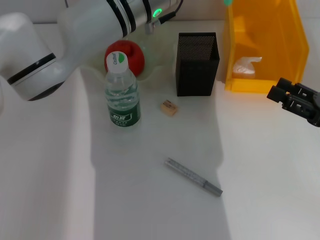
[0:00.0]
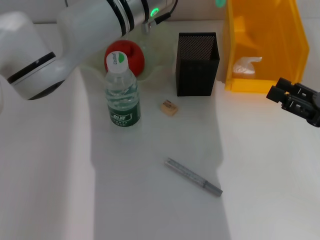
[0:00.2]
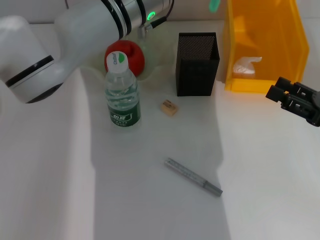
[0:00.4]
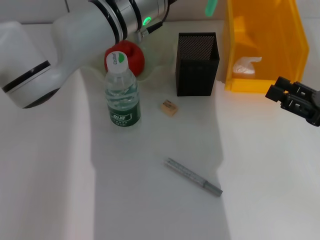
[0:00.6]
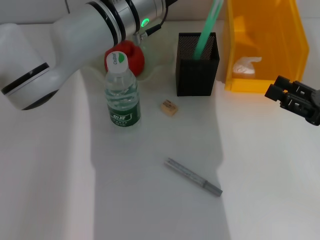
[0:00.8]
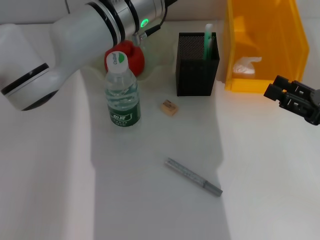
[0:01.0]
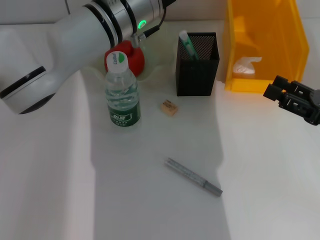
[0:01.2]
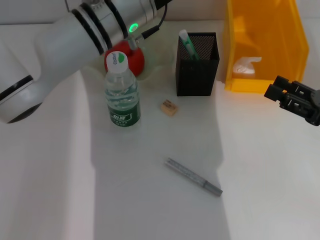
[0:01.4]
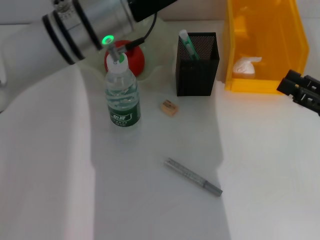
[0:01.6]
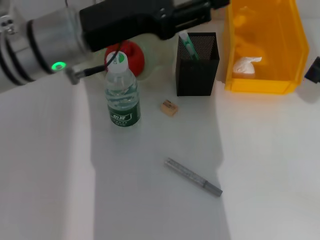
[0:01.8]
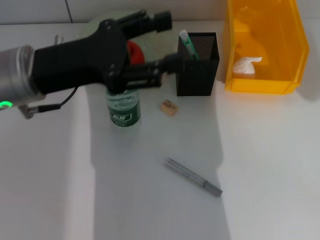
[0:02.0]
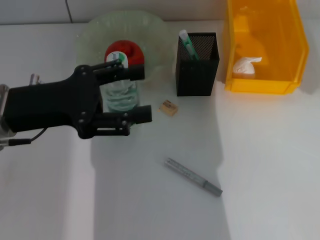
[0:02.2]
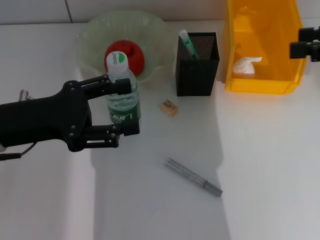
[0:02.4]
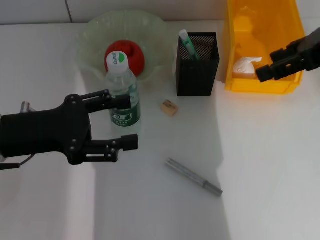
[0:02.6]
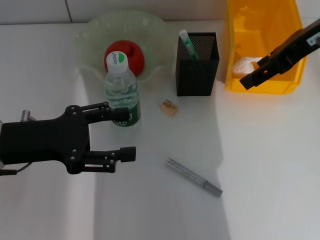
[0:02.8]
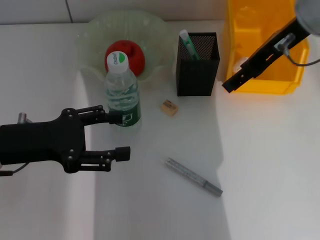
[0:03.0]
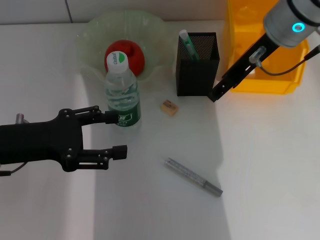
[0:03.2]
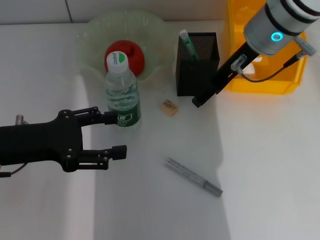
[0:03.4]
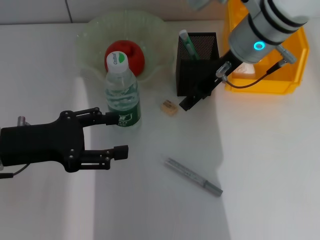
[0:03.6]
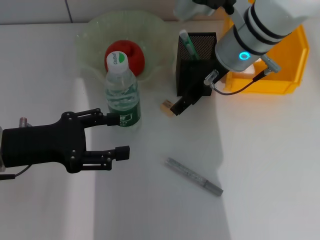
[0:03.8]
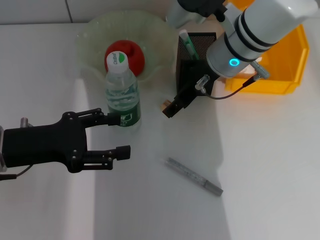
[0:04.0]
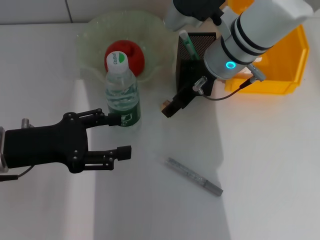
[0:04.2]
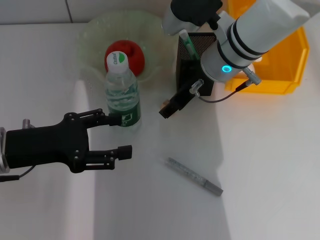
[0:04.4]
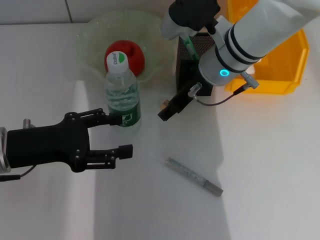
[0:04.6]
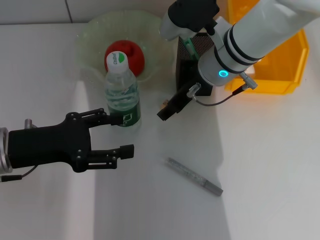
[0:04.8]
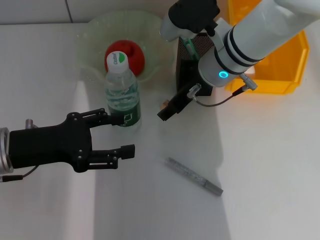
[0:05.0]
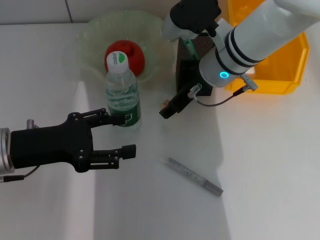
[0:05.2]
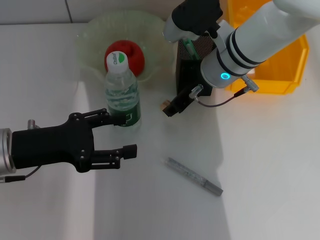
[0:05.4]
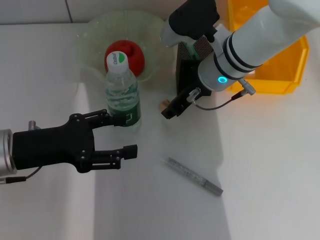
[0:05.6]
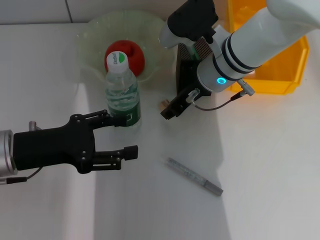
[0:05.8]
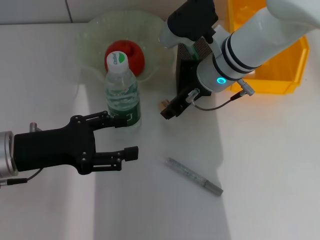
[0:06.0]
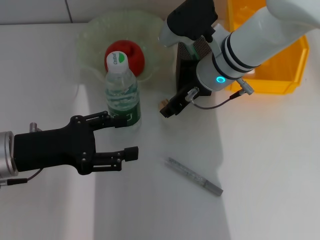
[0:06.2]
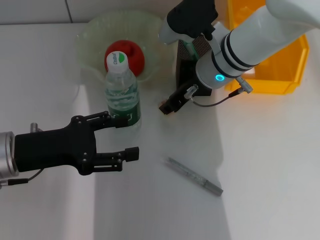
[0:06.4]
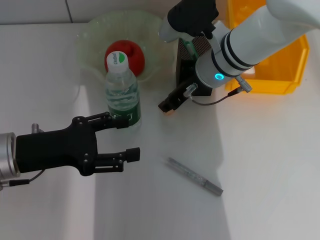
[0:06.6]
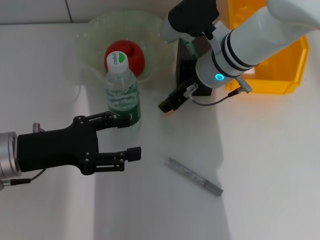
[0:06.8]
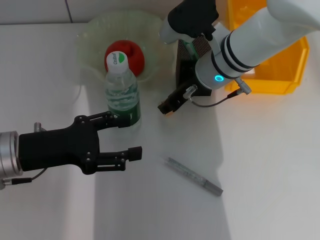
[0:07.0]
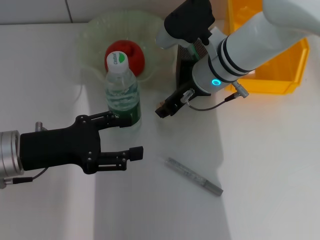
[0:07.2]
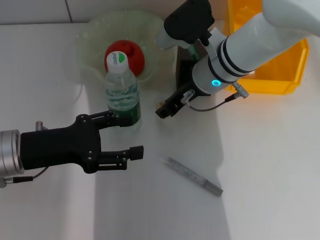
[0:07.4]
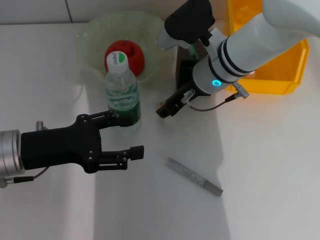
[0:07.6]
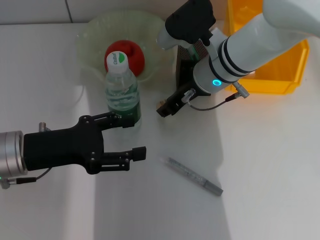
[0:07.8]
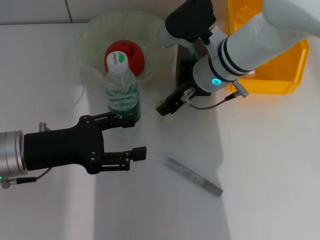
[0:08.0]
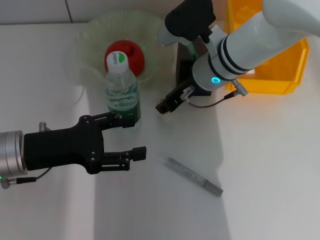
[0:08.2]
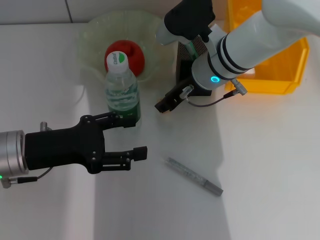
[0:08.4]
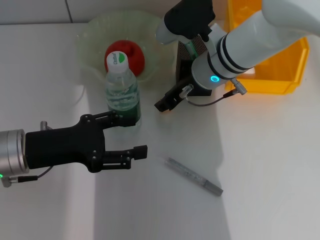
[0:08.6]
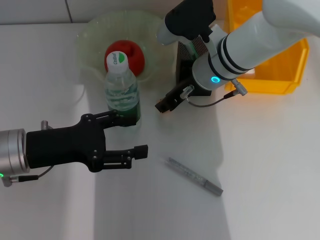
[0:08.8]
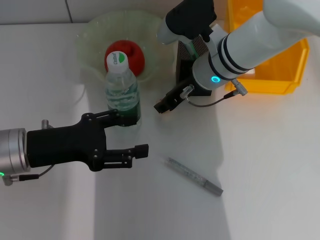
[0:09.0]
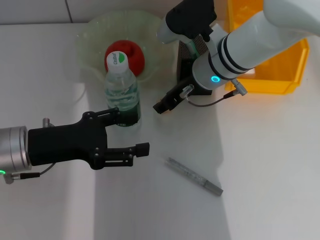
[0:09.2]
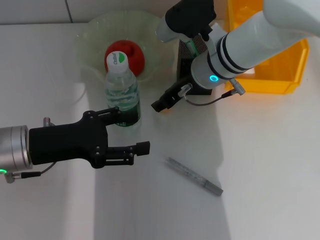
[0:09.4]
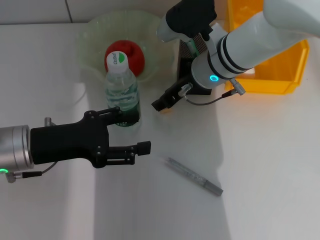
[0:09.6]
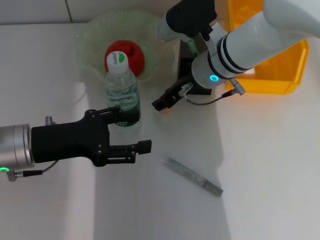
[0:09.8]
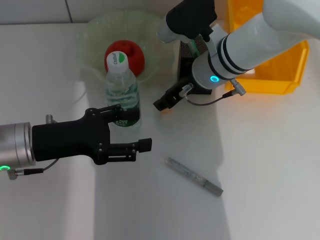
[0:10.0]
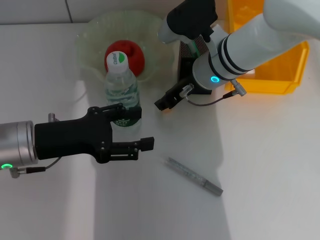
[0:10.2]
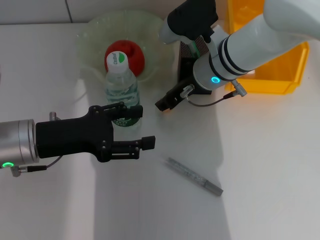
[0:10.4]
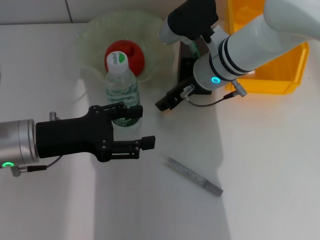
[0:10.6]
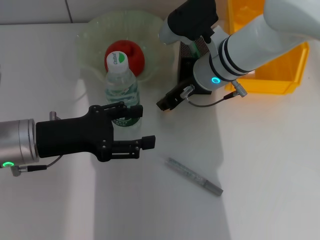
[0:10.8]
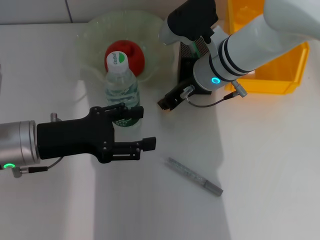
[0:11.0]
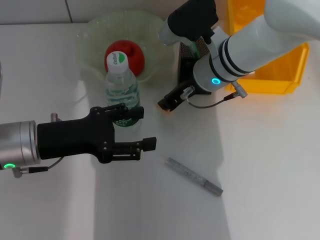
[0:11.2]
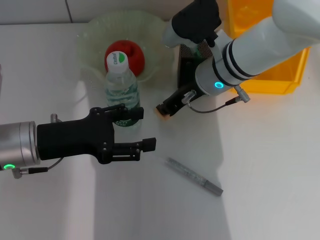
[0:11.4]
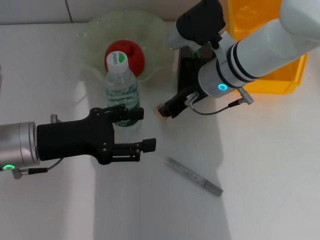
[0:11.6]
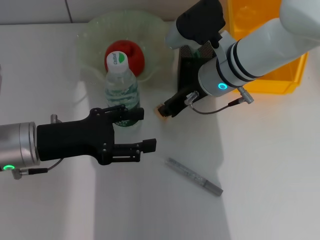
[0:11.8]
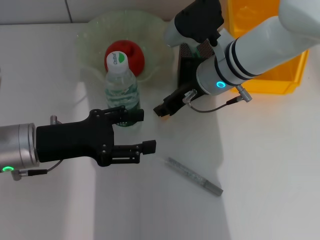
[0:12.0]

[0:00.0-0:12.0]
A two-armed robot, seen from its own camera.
0:00.0 to 0:01.6: The left gripper moves to the left, some 5 cm, and opens up.
0:01.6 to 0:03.0: The left gripper travels to the left, backward and downward by approximately 20 cm, and opens up. The right gripper goes about 25 cm to the left, upward and forward.
0:03.0 to 0:04.4: The right gripper shifts about 15 cm downward and to the left.
0:04.4 to 0:06.0: The right gripper closes its fingers.
0:06.0 to 0:07.6: The two grippers keep their place.
0:07.6 to 0:09.0: Neither gripper changes place.
0:09.0 to 0:12.0: The grippers make only small movements.

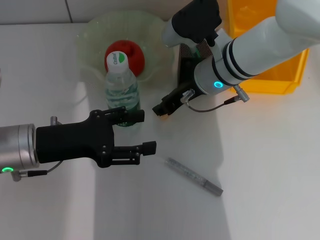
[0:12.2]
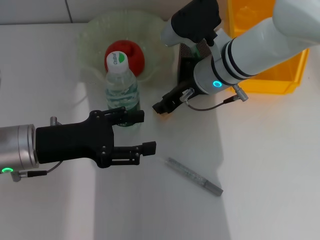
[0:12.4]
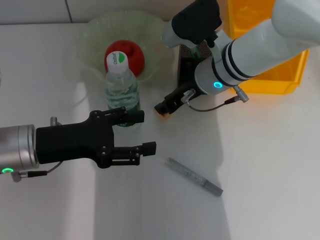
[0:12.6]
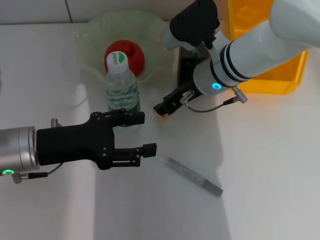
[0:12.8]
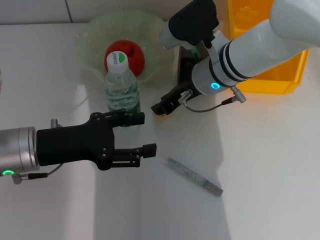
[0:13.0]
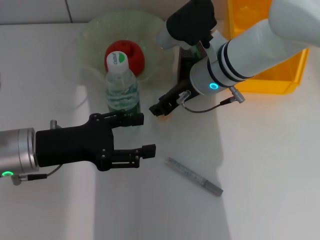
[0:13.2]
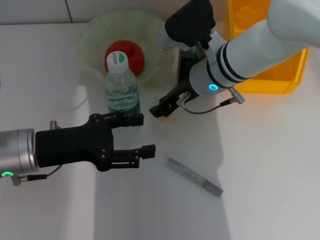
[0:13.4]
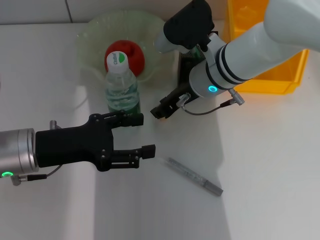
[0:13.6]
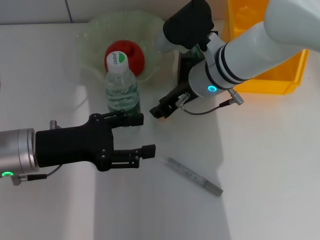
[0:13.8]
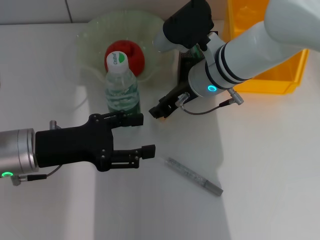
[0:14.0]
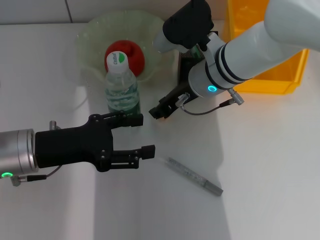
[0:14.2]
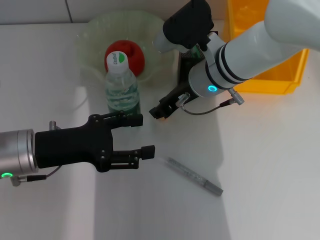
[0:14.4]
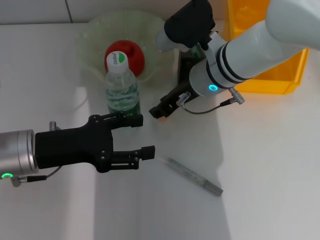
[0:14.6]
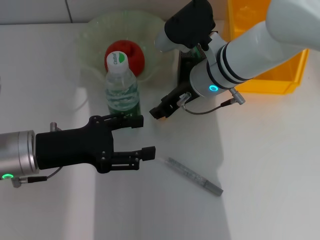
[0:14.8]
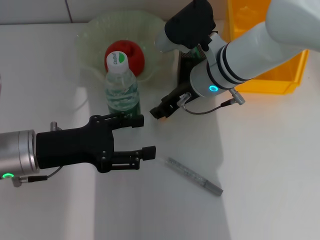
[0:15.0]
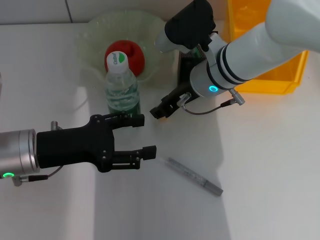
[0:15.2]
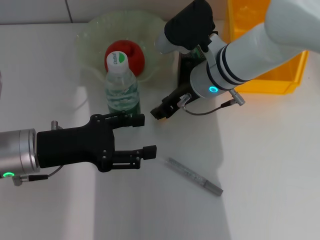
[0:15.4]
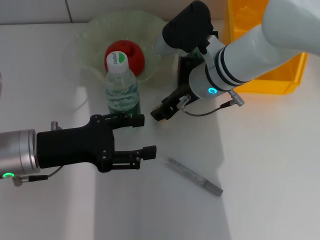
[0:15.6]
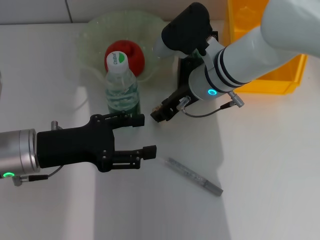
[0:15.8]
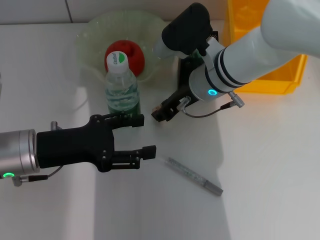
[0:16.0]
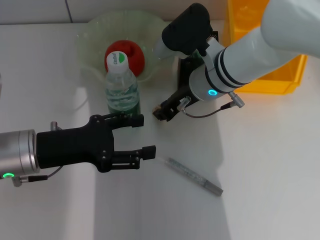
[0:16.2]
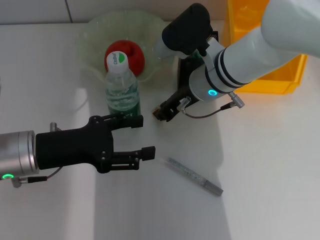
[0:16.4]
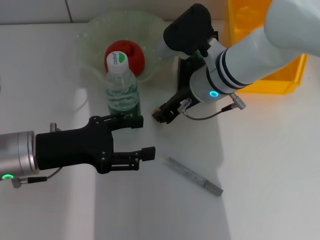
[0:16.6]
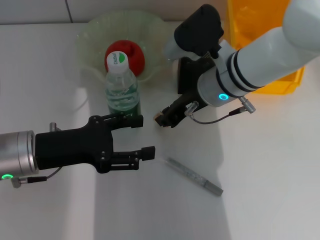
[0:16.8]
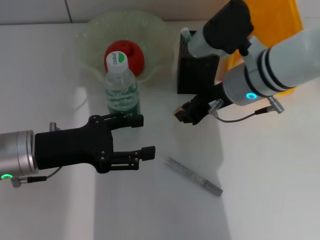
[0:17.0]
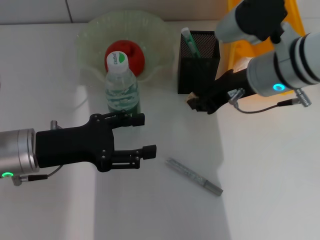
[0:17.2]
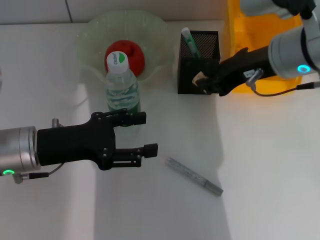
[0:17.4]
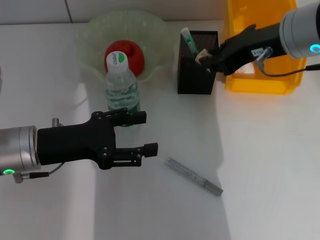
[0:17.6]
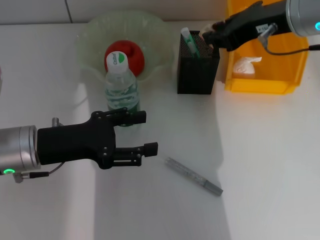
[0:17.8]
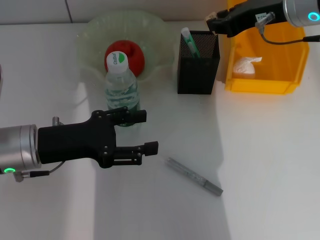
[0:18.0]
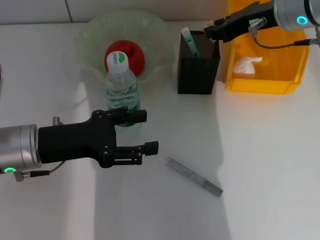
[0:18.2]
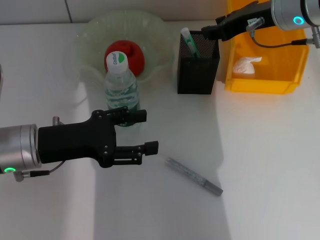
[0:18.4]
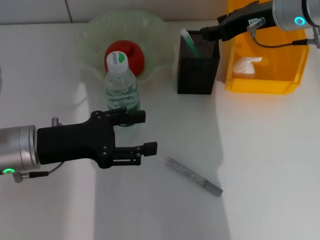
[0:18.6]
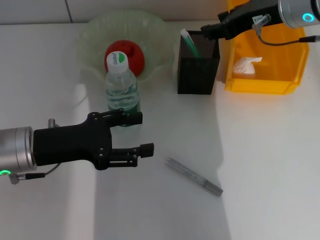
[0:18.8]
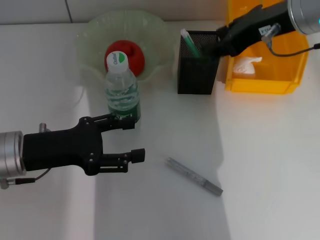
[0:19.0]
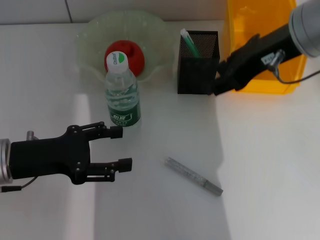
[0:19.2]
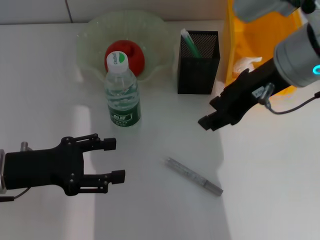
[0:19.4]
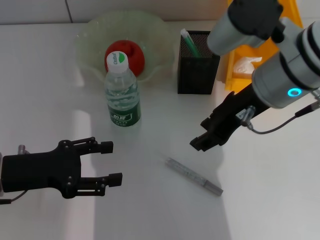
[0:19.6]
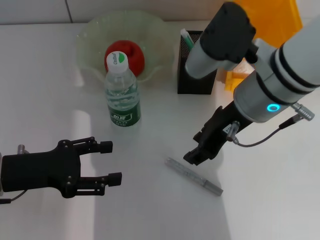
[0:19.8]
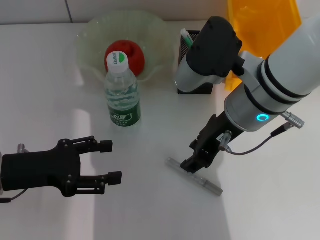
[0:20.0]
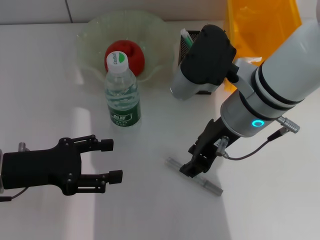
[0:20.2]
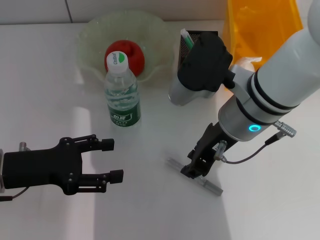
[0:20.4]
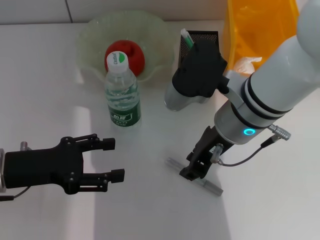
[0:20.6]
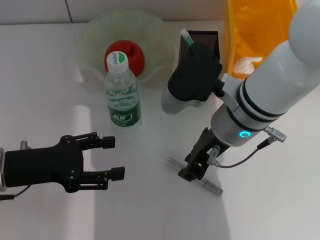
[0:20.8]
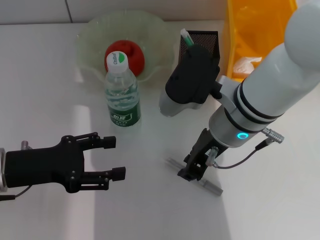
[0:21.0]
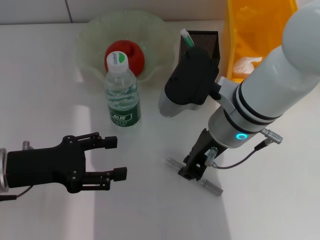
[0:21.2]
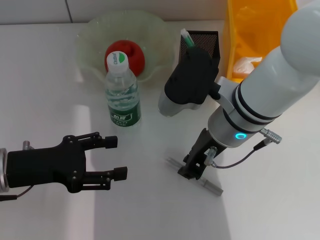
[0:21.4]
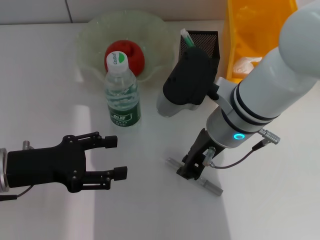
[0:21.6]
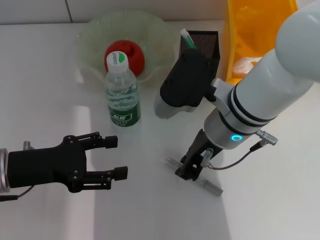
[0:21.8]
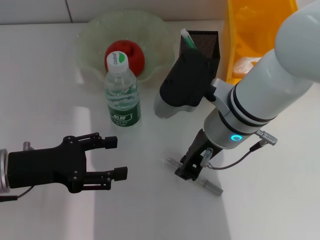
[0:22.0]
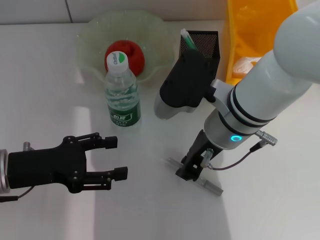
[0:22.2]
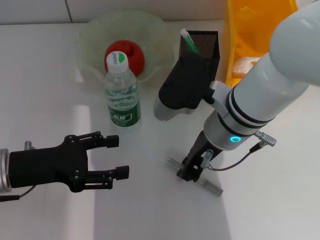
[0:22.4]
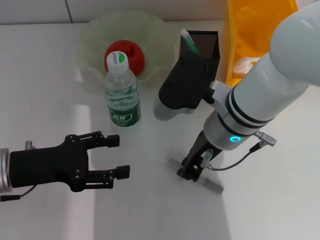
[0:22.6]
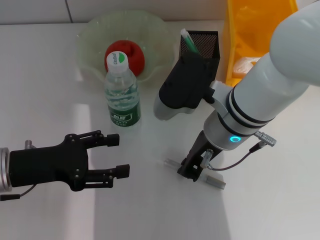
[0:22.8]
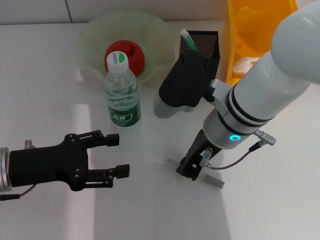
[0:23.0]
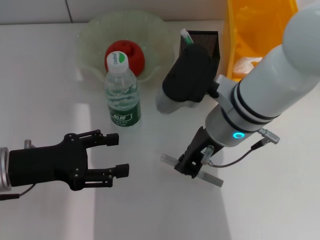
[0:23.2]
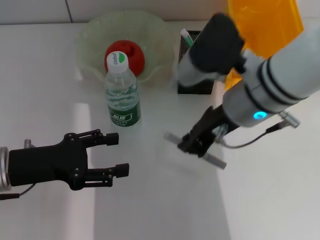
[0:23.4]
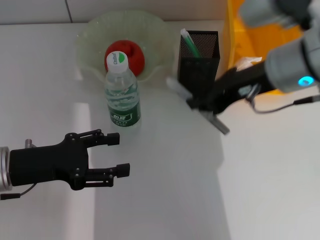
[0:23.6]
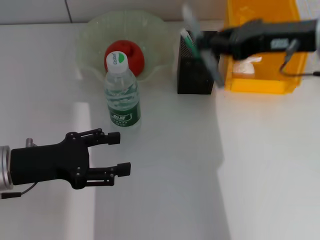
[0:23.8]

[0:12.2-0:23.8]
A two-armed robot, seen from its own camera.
Step, 0:12.2 to 0:16.2: Grab the eraser with the right hand.
Step, 0:16.4 to 0:18.8: Put the eraser into the pen holder with the right hand.
Step, 0:19.0 to 0:22.6: Grab the gray glue with the right hand.
0:12.2 to 0:16.6: Both grippers stay put.
0:16.6 to 0:18.0: The right gripper goes about 15 cm upward and to the right.
0:18.0 to 0:19.4: The right gripper goes some 5 cm backward.
0:19.4 to 0:21.0: The right gripper moves downward and to the left, roughly 10 cm.
0:21.0 to 0:22.4: Both grippers stay about where they are.
0:22.4 to 0:23.8: The right gripper shifts some 15 cm to the right and upward.
